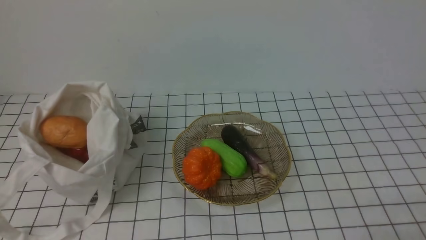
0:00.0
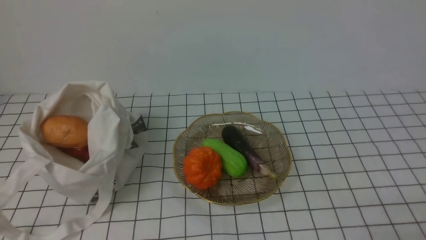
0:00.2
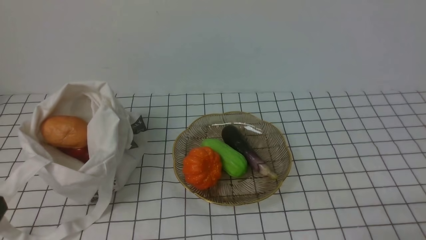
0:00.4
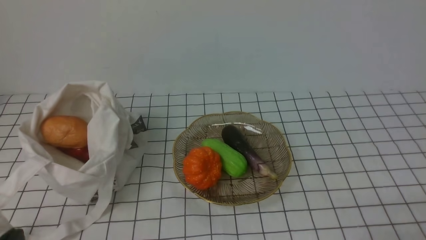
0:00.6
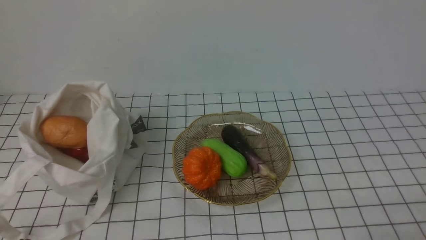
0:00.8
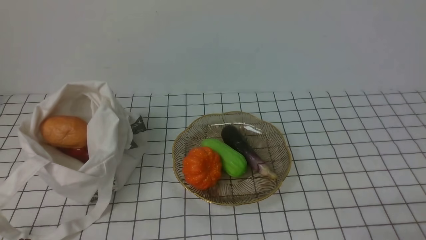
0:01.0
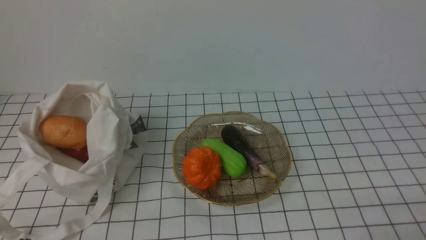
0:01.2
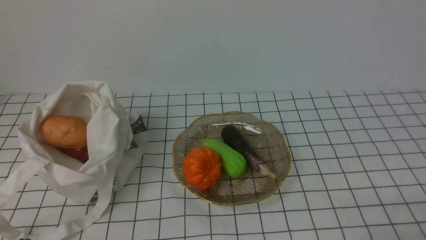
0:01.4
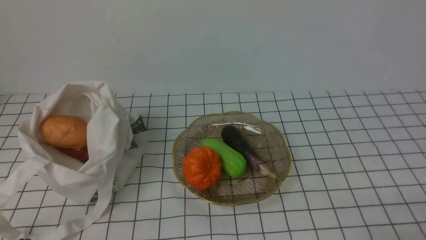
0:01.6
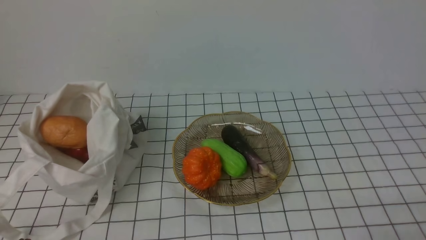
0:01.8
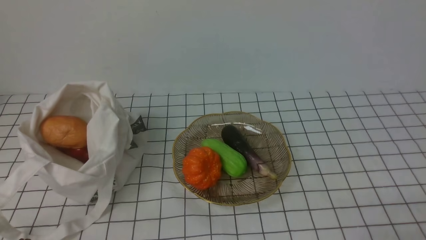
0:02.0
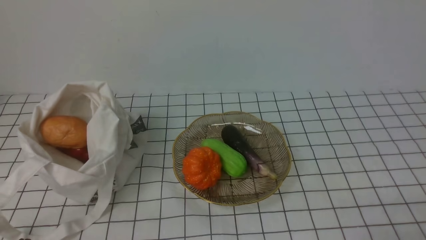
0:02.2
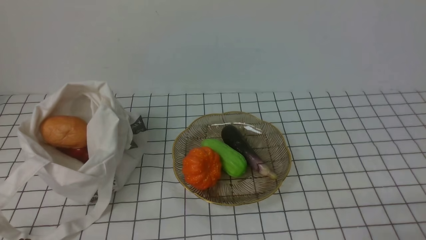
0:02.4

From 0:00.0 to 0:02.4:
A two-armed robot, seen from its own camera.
Task of the whole recording: take vegetables from bag on white checkered tablecloth place on plate.
From 0:01.2 to 0:02.4: Both grippers stay put.
